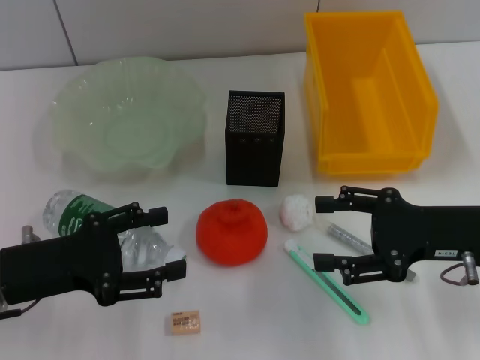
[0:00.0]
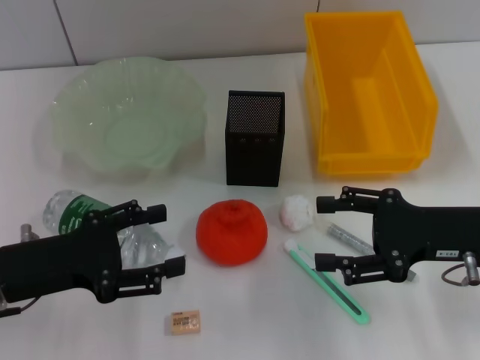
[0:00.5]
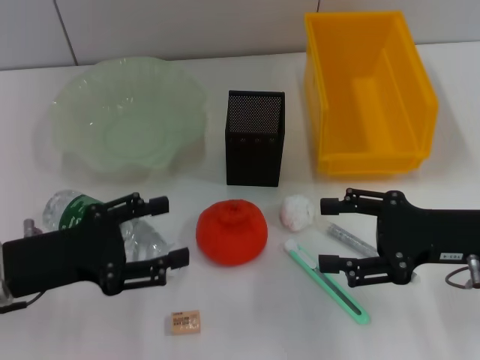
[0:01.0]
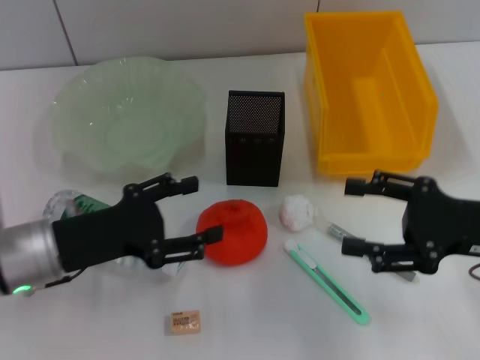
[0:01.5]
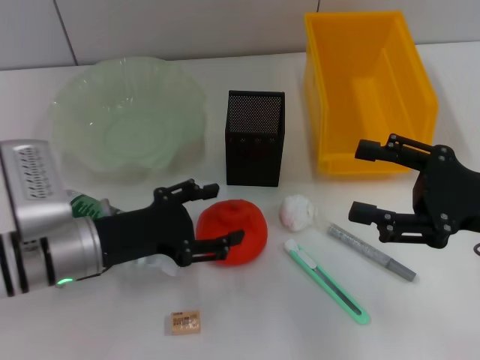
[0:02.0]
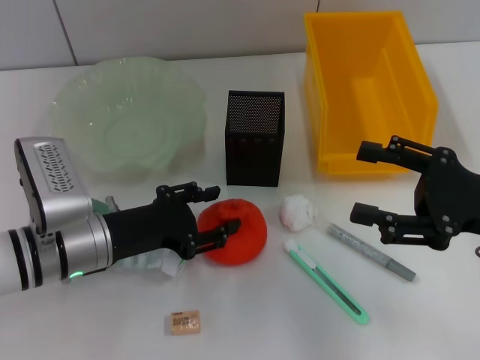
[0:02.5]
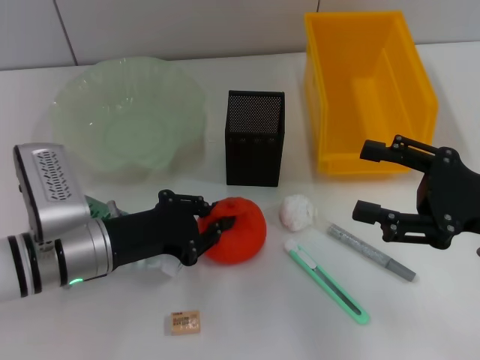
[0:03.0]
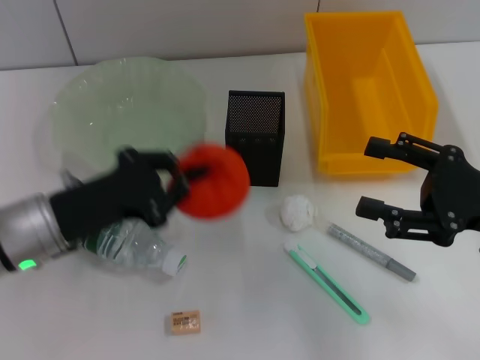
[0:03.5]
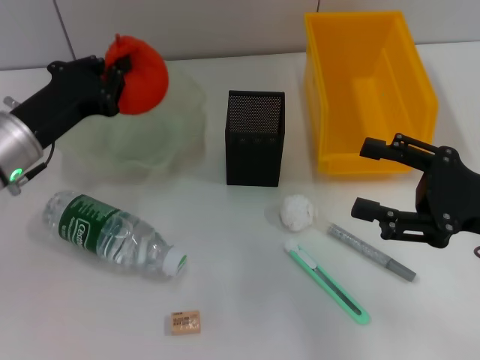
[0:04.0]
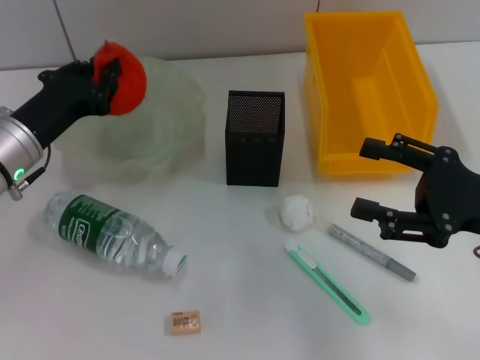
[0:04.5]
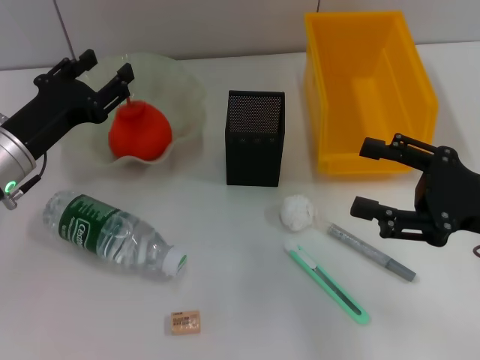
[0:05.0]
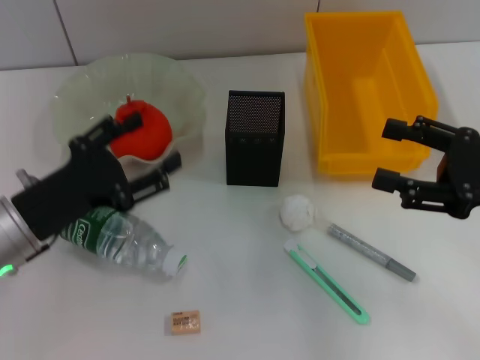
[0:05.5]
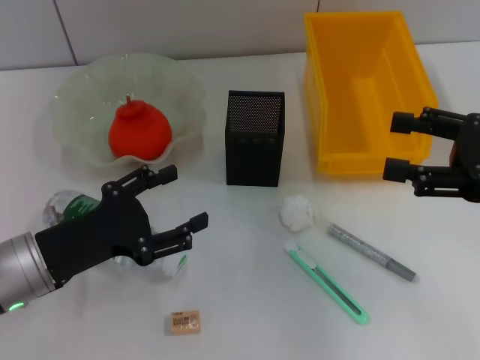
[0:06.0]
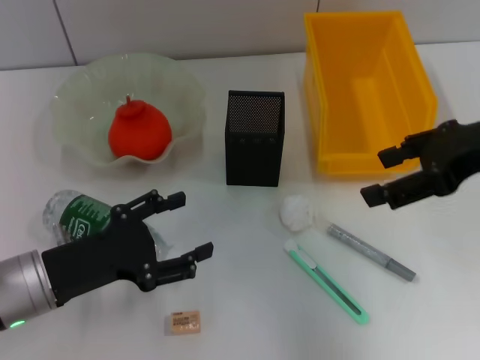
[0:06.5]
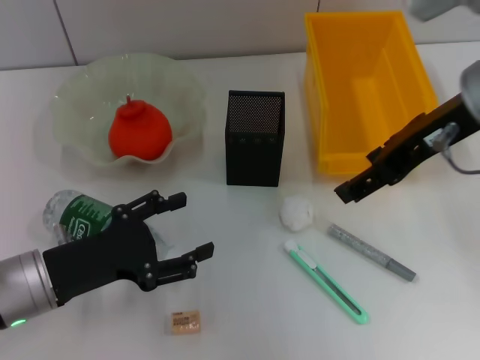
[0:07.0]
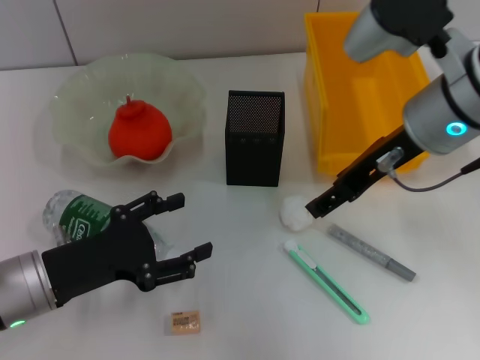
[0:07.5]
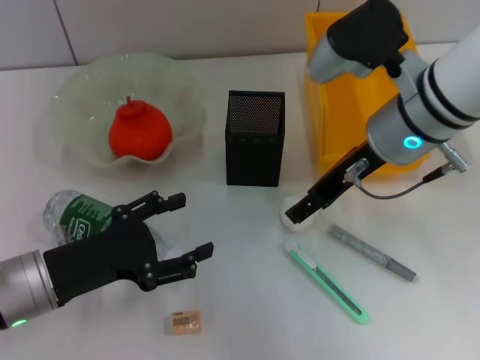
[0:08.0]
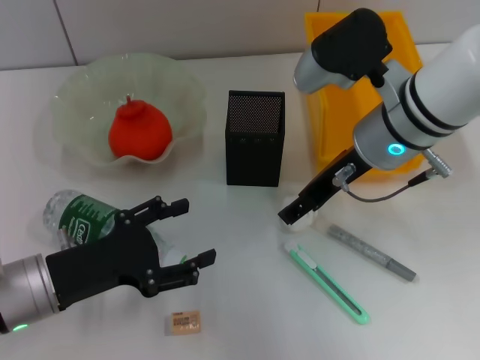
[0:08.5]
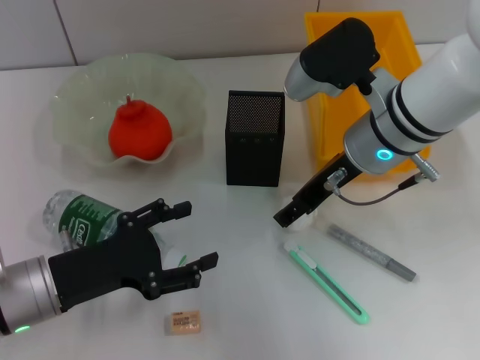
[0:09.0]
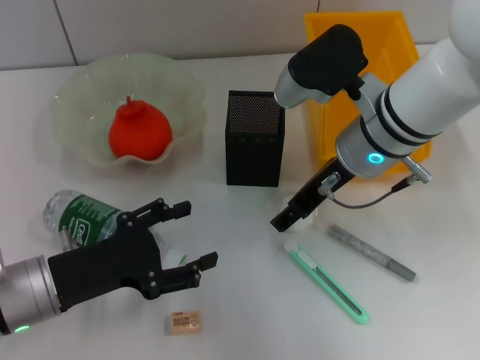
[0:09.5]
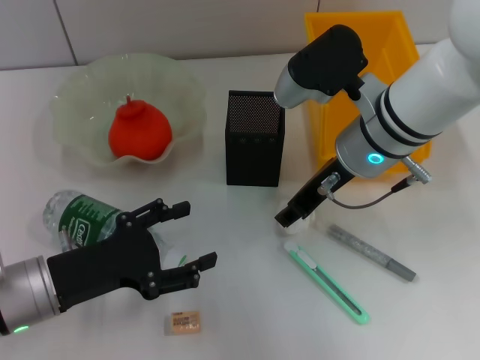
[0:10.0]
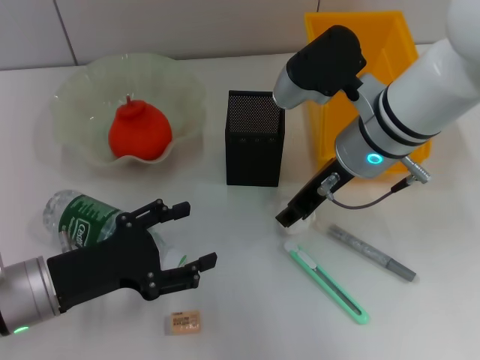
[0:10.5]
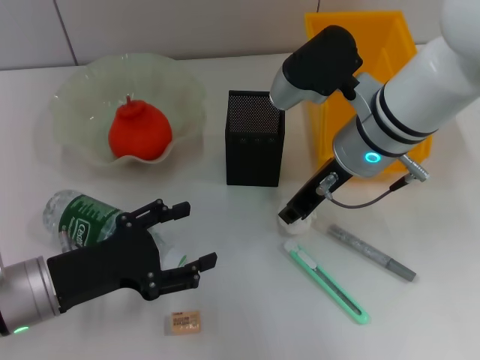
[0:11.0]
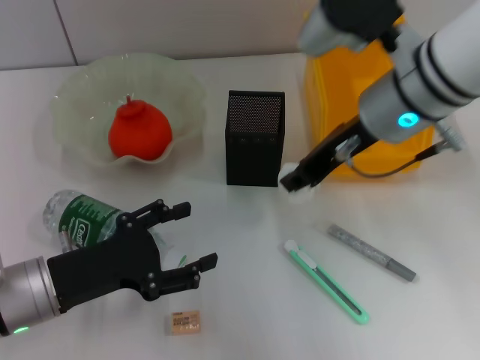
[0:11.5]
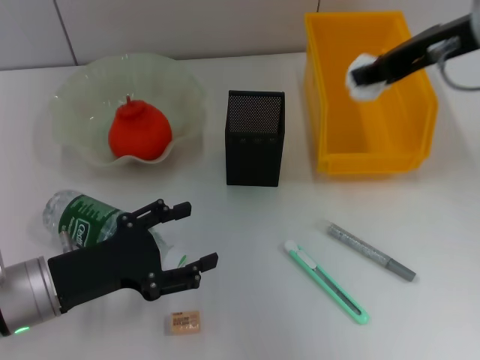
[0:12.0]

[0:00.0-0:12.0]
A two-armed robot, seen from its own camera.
Step, 0:00.0 to 0:03.0: Grab the orange with the left hand.
Step, 0:03.5 to 0:05.0: Place the orange into the fruit bowl with the left hand.
Step, 0:05.5 to 0:10.5: Grab the paper ball with the right hand.
0:00.0 to 0:02.0: The left gripper is displaced to the right by some 5 cm.
0:02.0 to 0:04.0: The left gripper is displaced forward by roughly 5 cm, and closes its fingers.
0:04.0 to 0:06.0: The right gripper ends up about 5 cm from where it was; the left gripper heads backward, covering approximately 10 cm, and opens up.
0:06.0 to 0:08.0: The right gripper is displaced to the left and forward by roughly 20 cm.
0:08.0 to 0:10.0: The grippers stay close to where they were, moving slightly.
0:10.0 to 0:12.0: The right gripper goes some 15 cm upward and to the right, and closes.

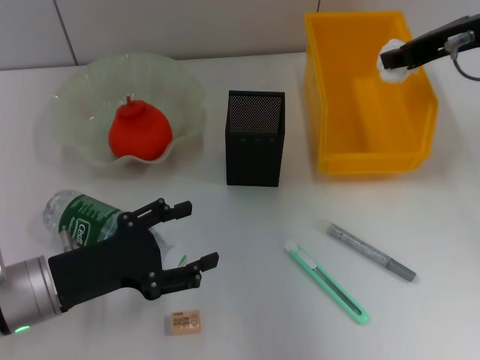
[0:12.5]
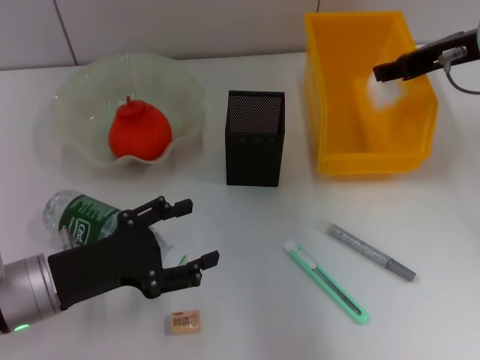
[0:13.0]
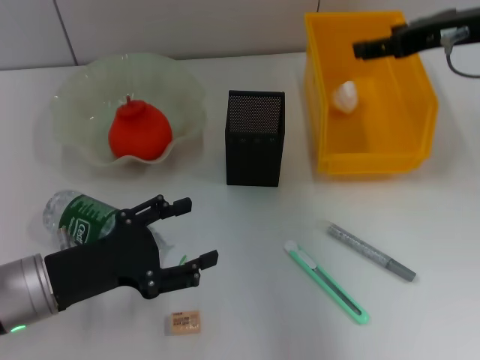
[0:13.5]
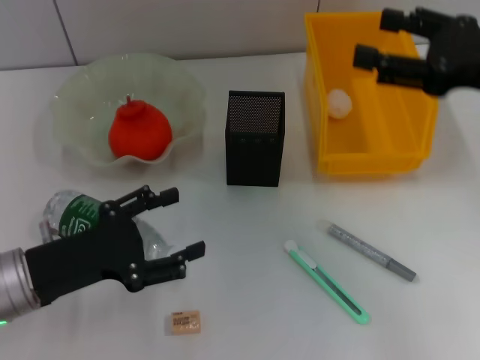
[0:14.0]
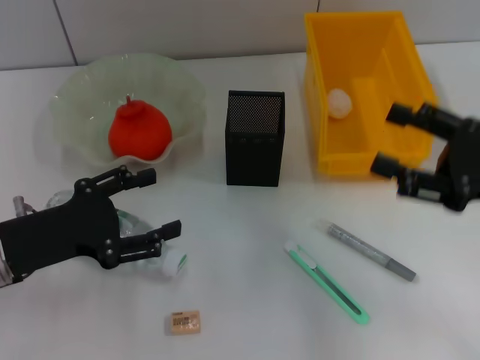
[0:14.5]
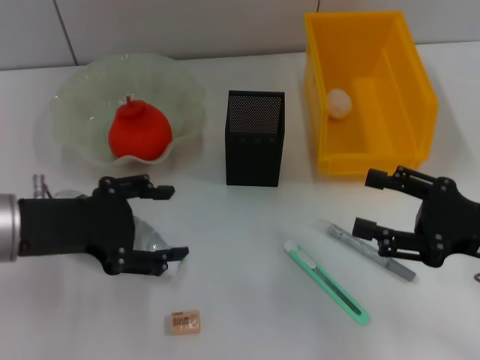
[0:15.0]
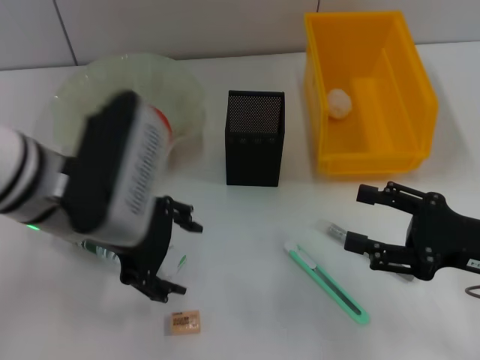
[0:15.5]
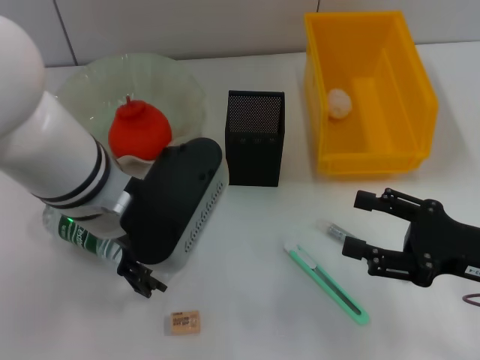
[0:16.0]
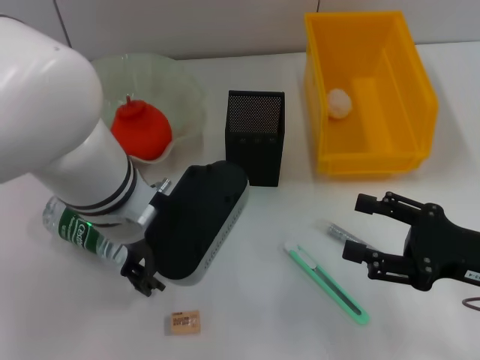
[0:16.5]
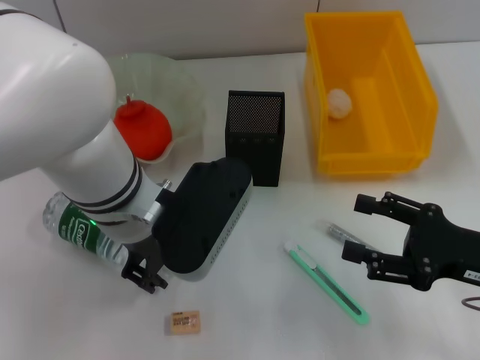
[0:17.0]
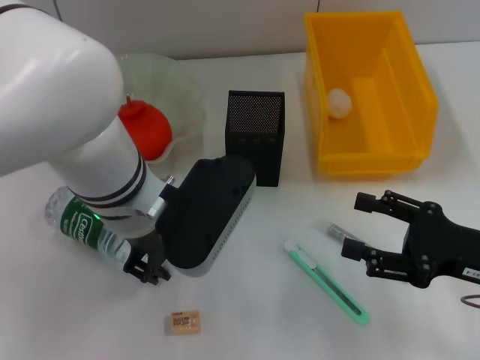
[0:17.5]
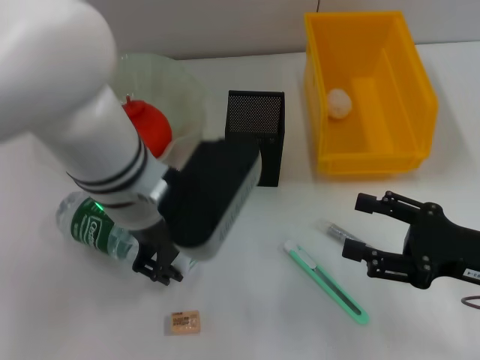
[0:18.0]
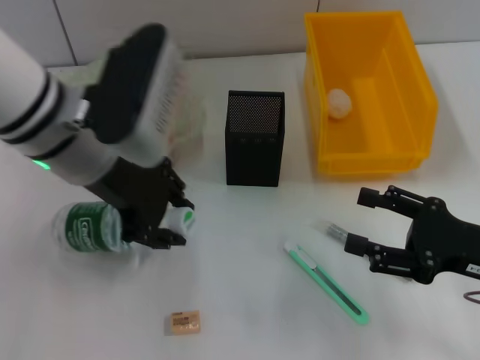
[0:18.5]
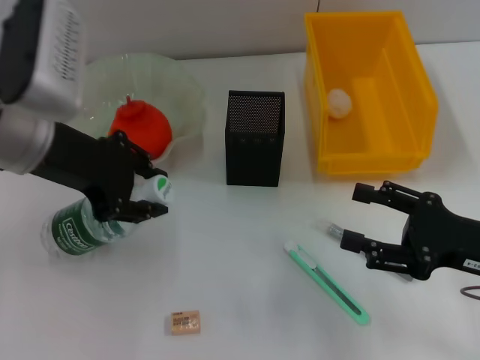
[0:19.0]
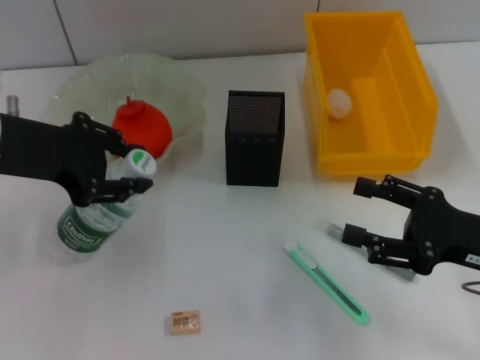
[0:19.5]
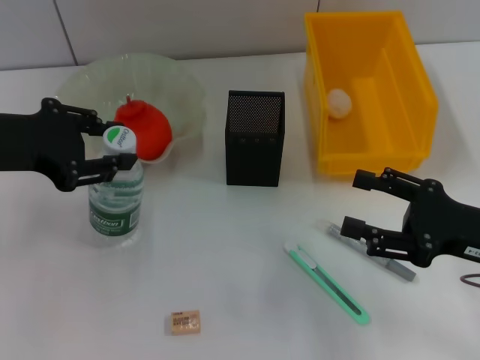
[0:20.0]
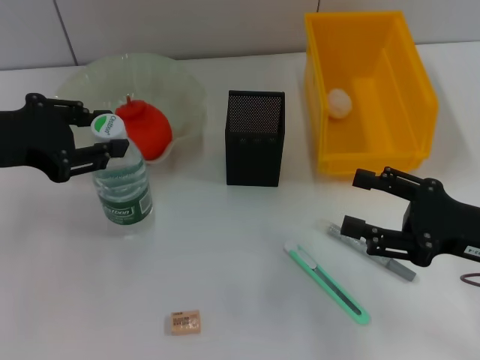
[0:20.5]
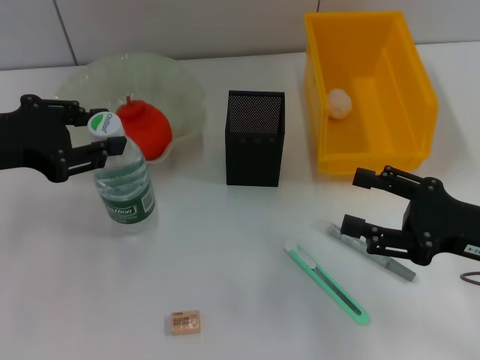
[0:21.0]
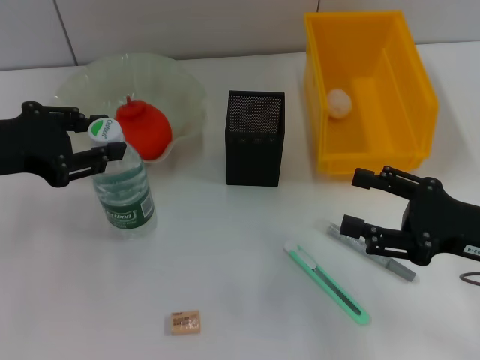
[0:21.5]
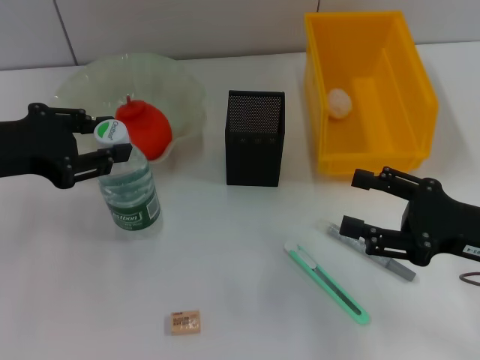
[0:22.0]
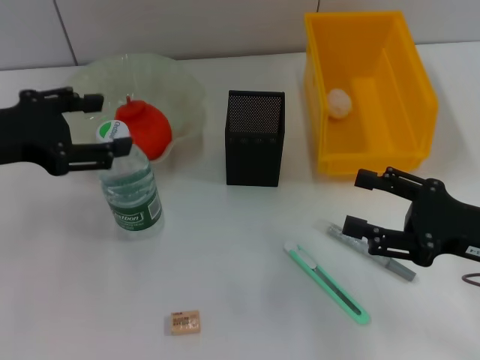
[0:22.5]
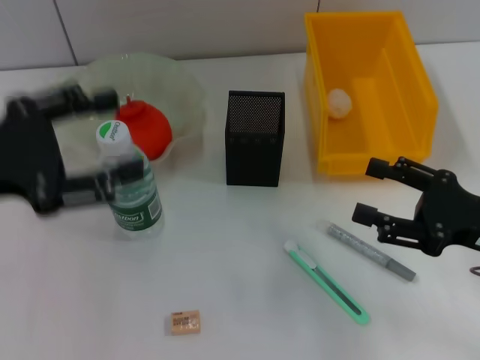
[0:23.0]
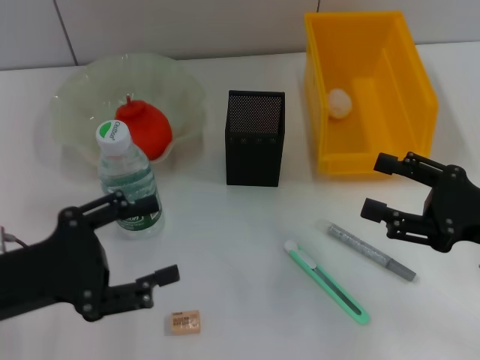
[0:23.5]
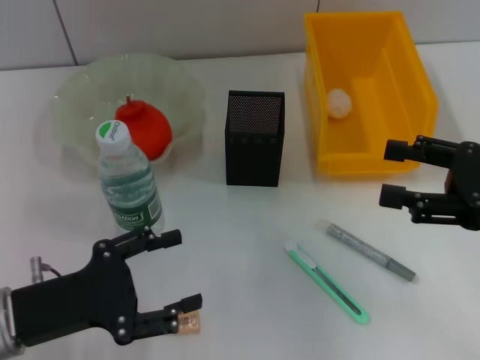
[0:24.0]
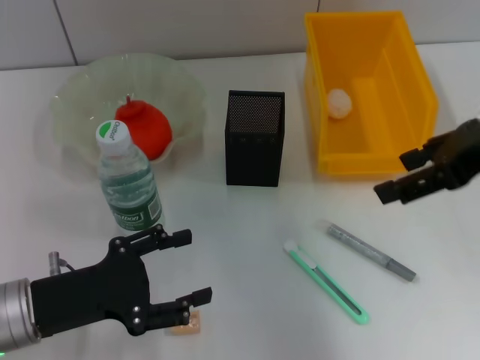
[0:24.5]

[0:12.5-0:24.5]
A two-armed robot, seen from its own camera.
Step, 0:13.5 to 0:17.5: Grab the water bottle with the left hand.
Step, 0:18.0 to 0:22.5: Place the water bottle on the table with the left hand.
0:12.5 to 0:14.5: The left gripper changes place by about 5 cm. The right gripper heads backward and downward, covering roughly 20 cm, and opens its fingers.
0:14.5 to 0:16.5: The left gripper travels to the right and upward by about 20 cm; the right gripper travels downward by approximately 5 cm.
0:16.5 to 0:18.5: The left gripper shifts by some 5 cm, and closes its fingers.
0:18.5 to 0:20.5: The left gripper moves to the left, approximately 15 cm.
0:20.5 to 0:22.5: The grippers stay close to where they were, moving slightly.
0:22.5 to 0:24.5: The left gripper goes about 15 cm downward and backward, and opens its fingers; the right gripper shifts approximately 20 cm upward.

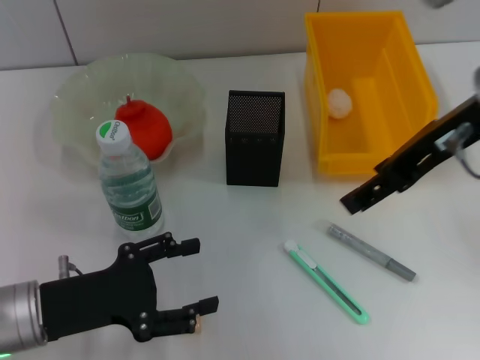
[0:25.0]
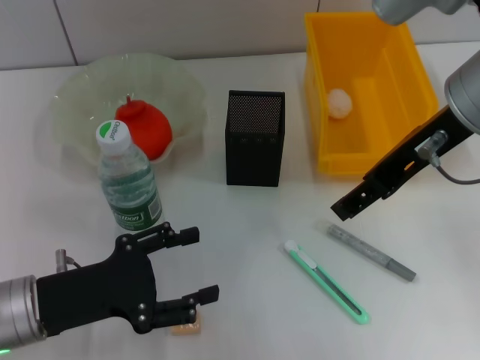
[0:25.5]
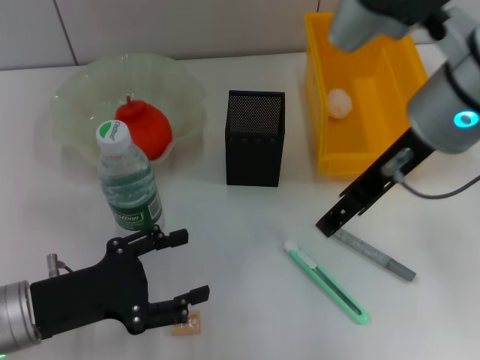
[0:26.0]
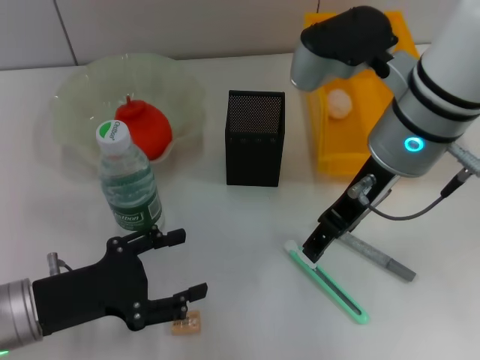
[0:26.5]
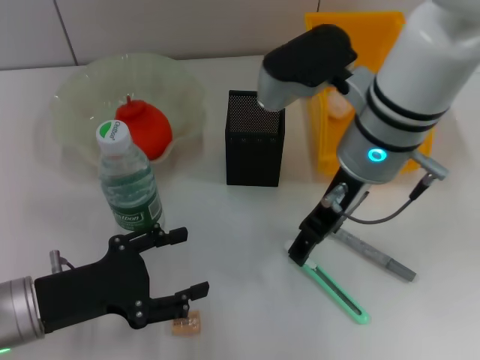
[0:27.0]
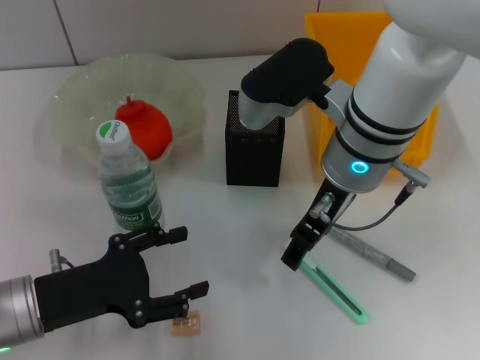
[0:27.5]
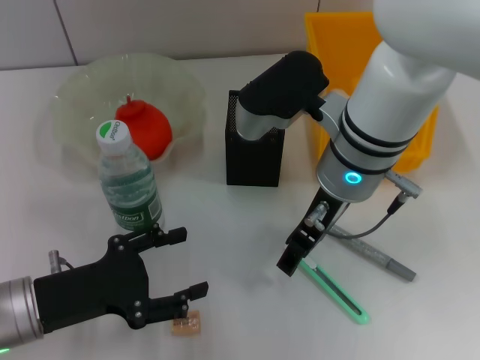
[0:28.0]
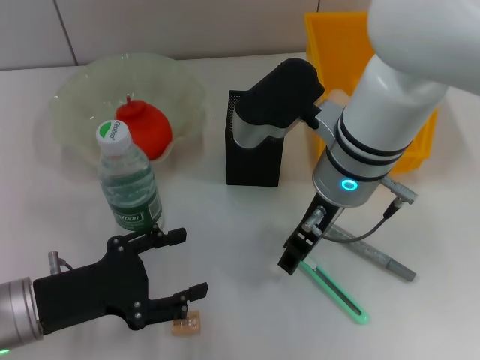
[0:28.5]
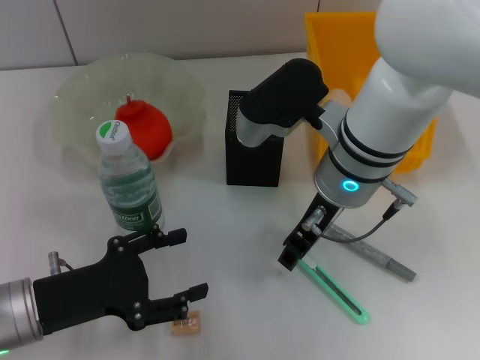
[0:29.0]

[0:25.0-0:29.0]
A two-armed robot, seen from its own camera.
0:25.0 to 0:27.0: The right gripper heads to the left and downward, covering some 10 cm.
0:27.0 to 0:29.0: The grippers stay close to where they were, moving slightly.
